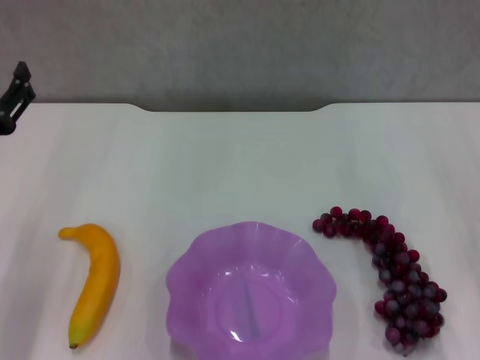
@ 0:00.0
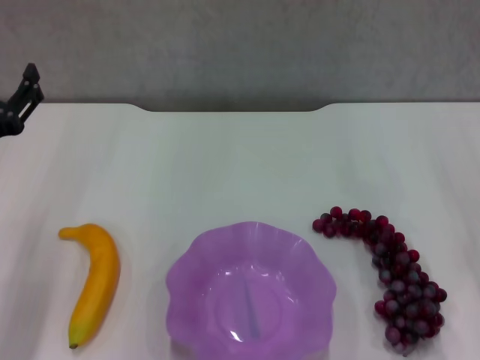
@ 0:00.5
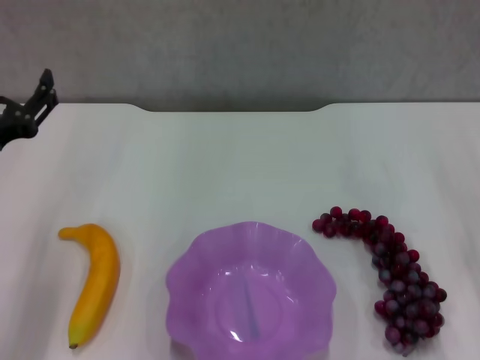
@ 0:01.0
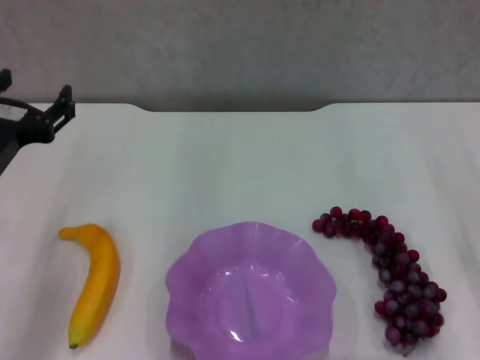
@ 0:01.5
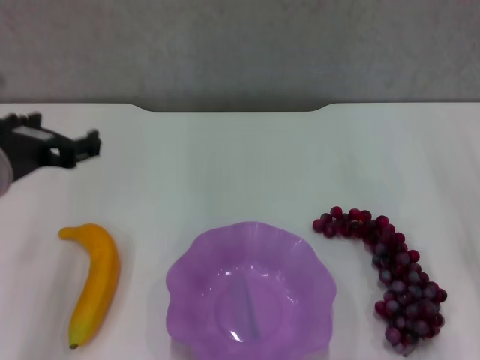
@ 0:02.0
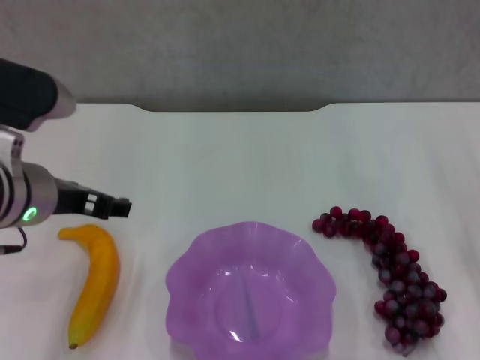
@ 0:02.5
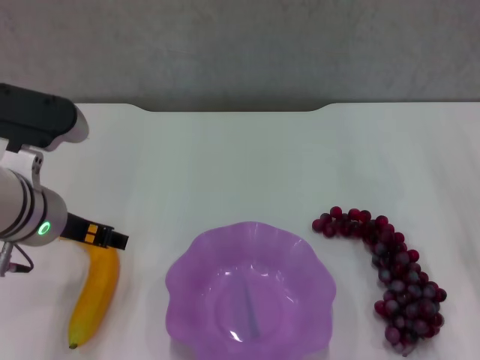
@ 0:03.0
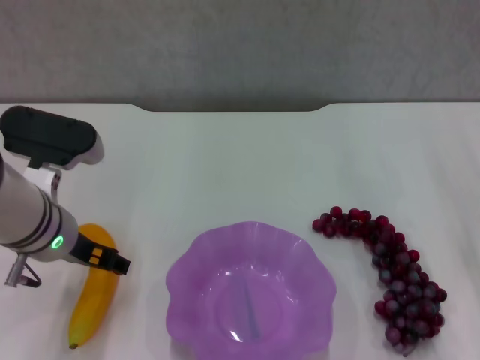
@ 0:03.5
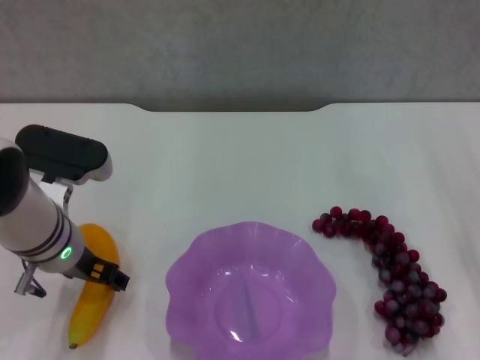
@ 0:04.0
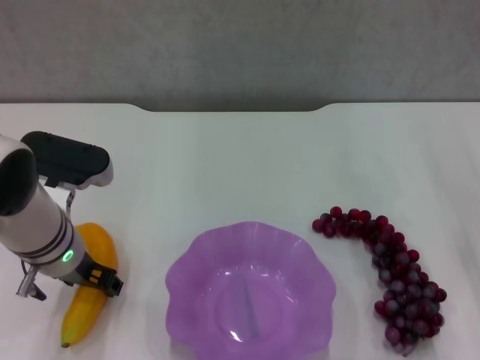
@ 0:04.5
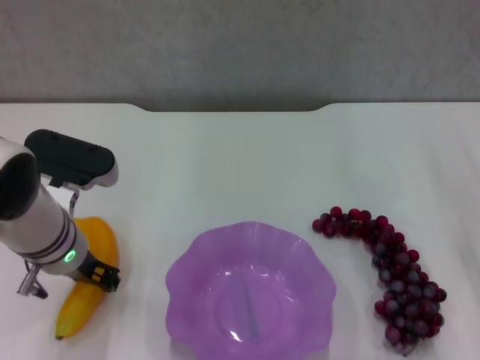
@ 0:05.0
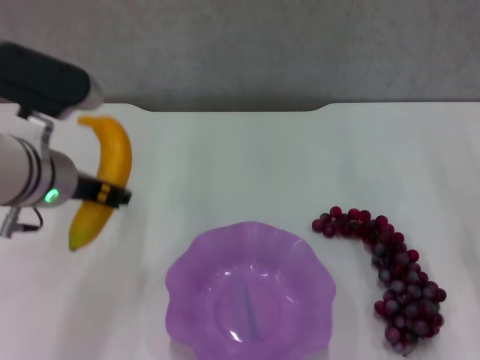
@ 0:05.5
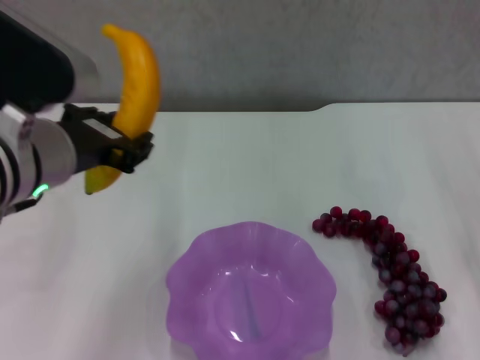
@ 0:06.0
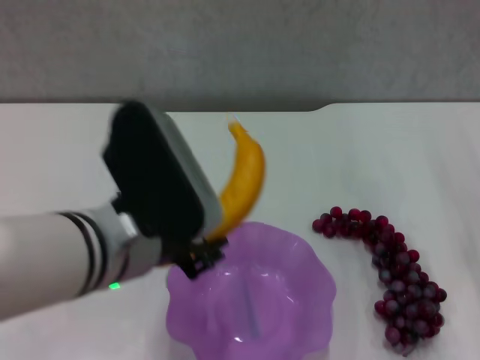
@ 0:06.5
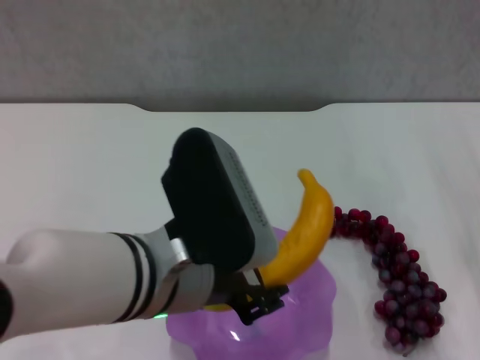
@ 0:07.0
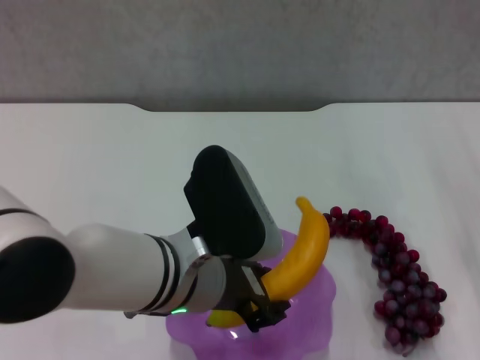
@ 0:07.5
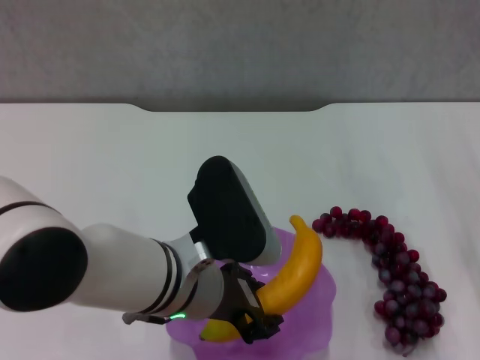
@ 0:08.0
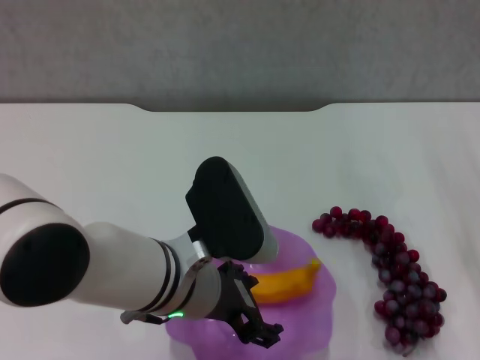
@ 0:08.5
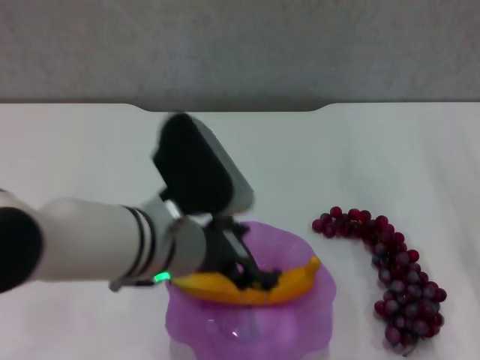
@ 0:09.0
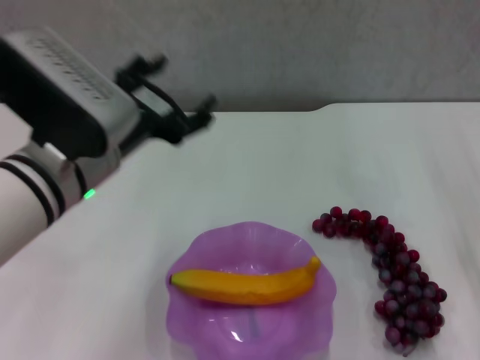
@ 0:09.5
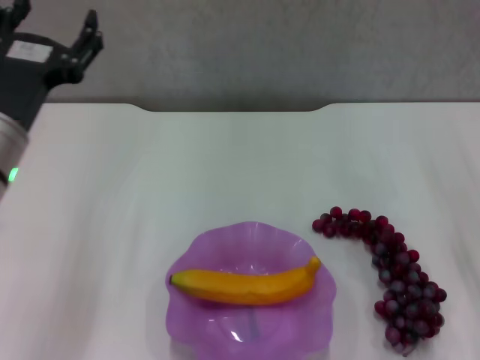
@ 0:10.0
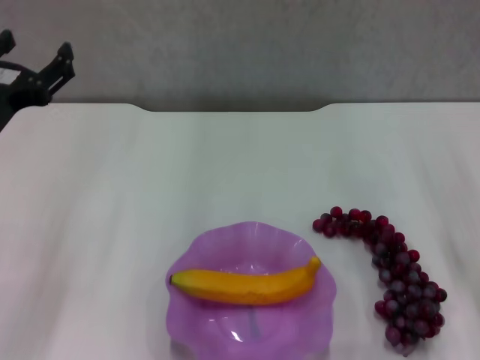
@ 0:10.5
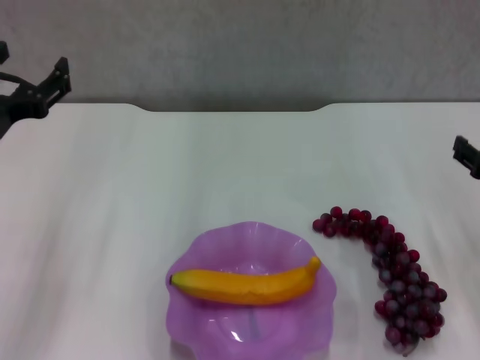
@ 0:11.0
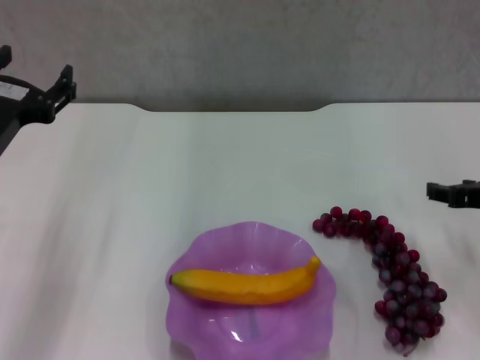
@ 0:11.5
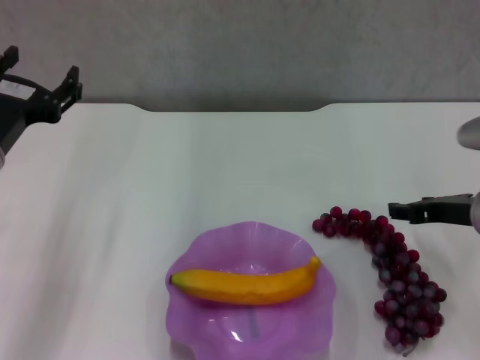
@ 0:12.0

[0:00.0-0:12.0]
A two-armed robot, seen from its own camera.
Step, 0:00.0 to 0:04.5: Grasp the banana with left gripper.
Step, 0:05.0 to 0:08.5: Place the banana in the purple plate with left gripper.
0:00.0 to 0:02.0: The left gripper travels upward and to the right by roughly 10 cm.
0:02.0 to 0:04.0: The left gripper moves downward, some 10 cm.
0:04.0 to 0:06.0: The left gripper heads upward, covering approximately 10 cm, and closes up.
0:06.0 to 0:08.0: The left gripper shifts approximately 15 cm to the right and downward.
0:08.0 to 0:10.0: The left gripper moves to the left, about 15 cm, and opens its fingers.
0:10.0 to 0:12.0: The right gripper heads forward, covering roughly 10 cm.

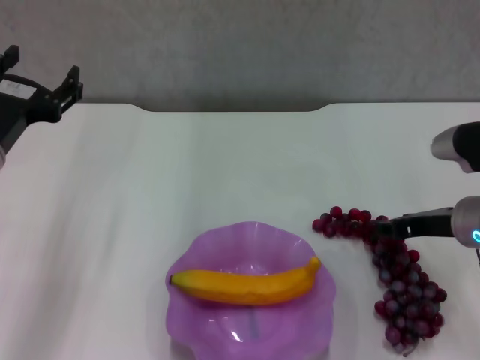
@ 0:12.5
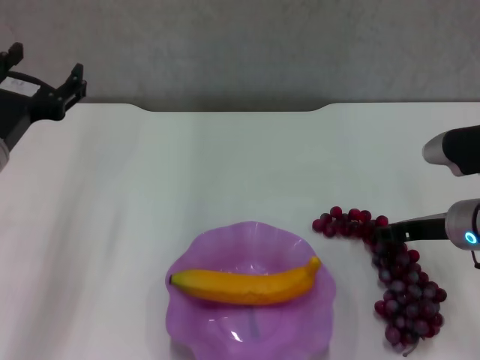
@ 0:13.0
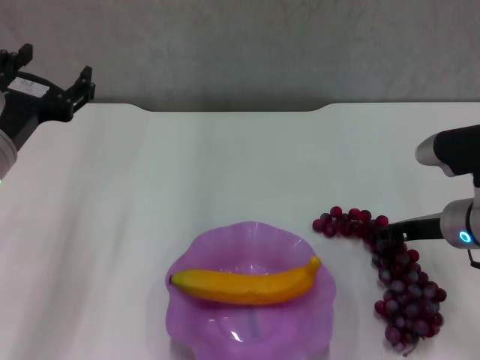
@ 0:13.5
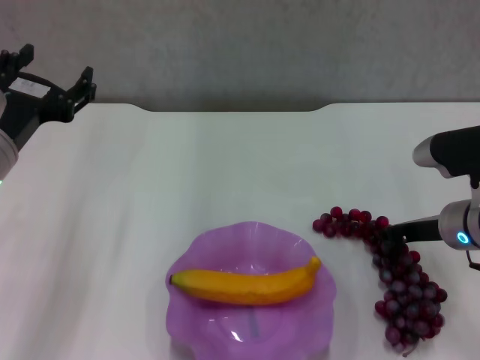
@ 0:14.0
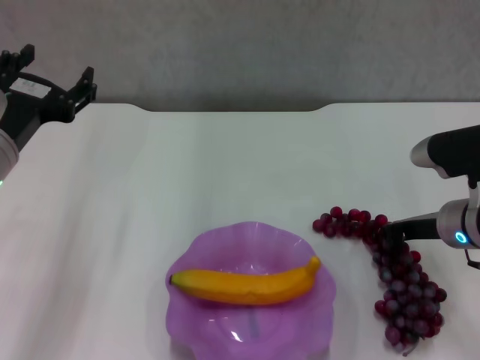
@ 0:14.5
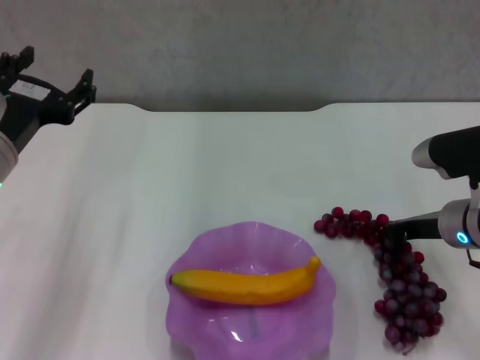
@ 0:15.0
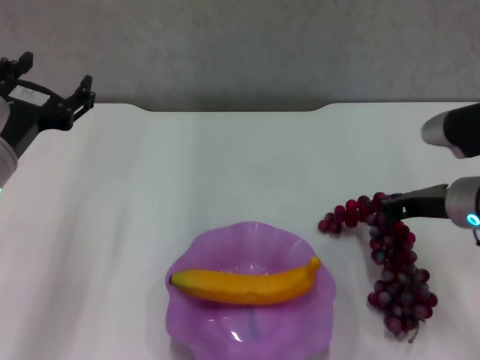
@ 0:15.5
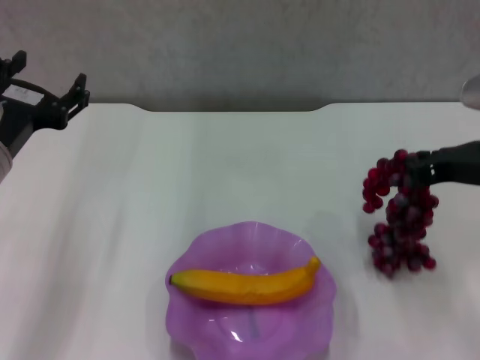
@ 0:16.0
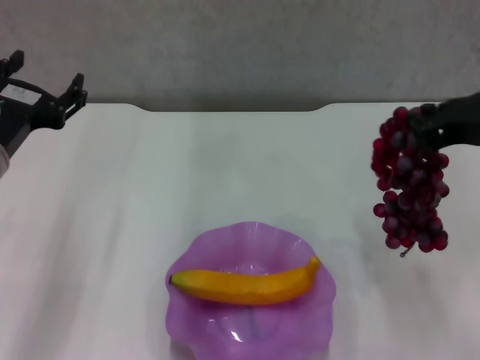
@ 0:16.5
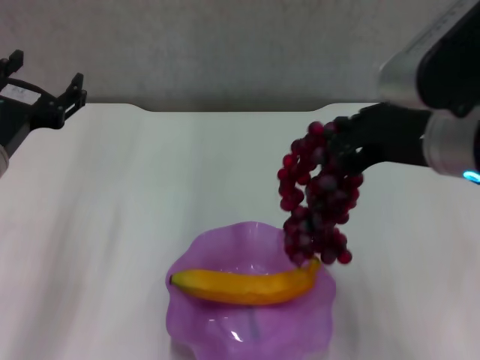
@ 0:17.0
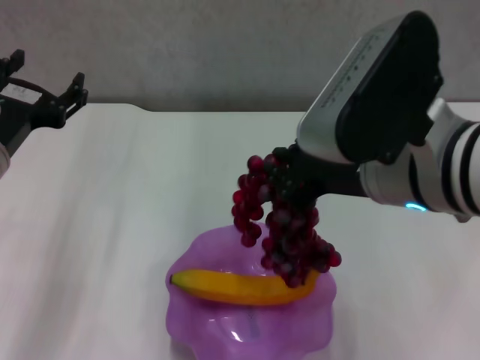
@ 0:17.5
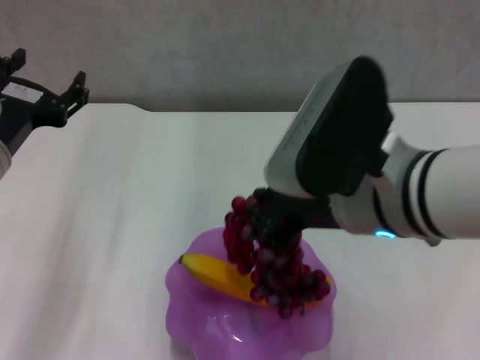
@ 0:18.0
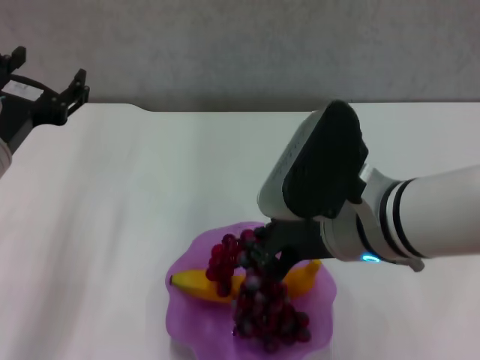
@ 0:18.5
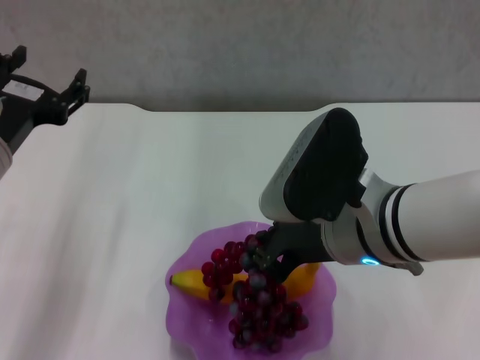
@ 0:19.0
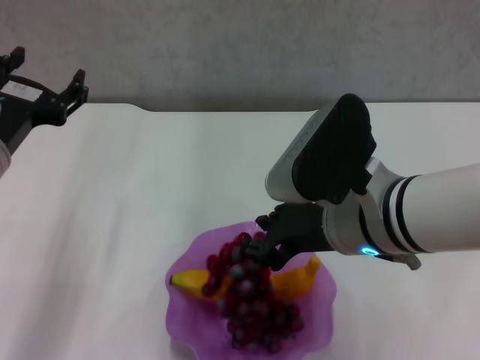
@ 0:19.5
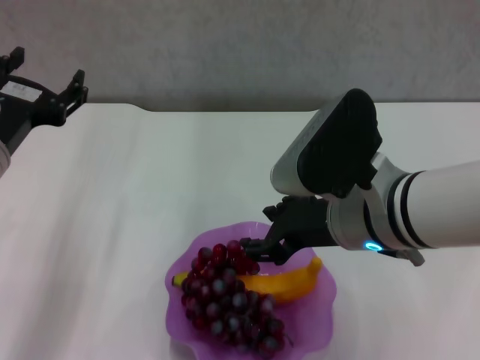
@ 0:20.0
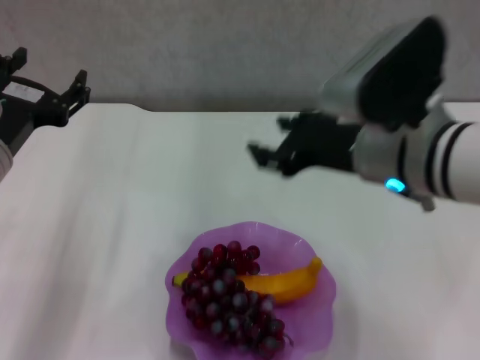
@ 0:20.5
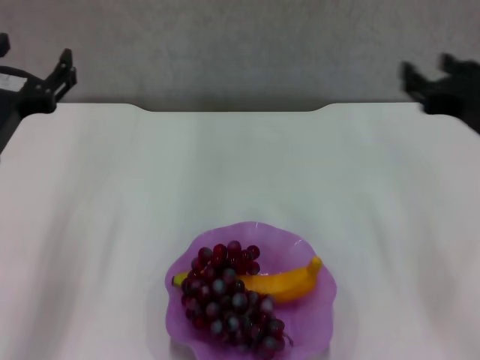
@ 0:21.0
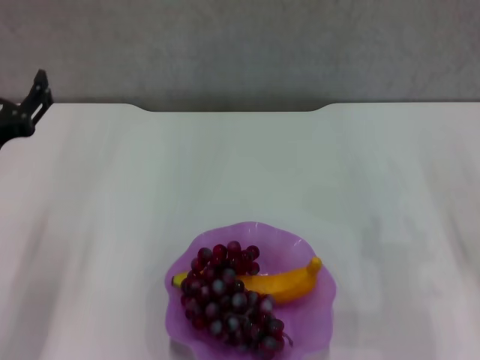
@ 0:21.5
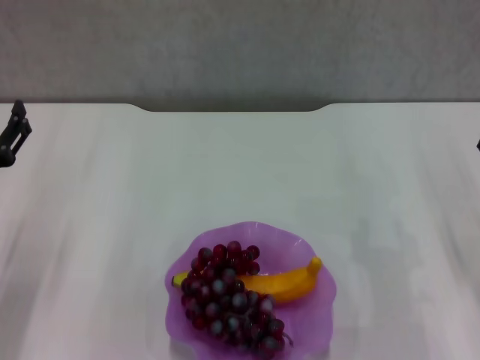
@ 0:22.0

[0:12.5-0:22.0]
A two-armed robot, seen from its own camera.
Step, 0:12.5 to 0:15.0: Grasp the grape with right gripper.
Step, 0:15.5 to 0:20.0: Place the grape in the purple plate with right gripper.
0:12.5 to 0:14.5: The right gripper closes up.
0:14.5 to 0:16.5: The right gripper heads upward, covering some 15 cm.
0:16.5 to 0:18.0: The right gripper shifts approximately 10 cm to the left.
0:18.0 to 0:20.0: The right gripper opens up.
0:20.0 to 0:22.0: The right gripper travels to the right and downward by some 20 cm; the left gripper heads downward, covering about 10 cm.

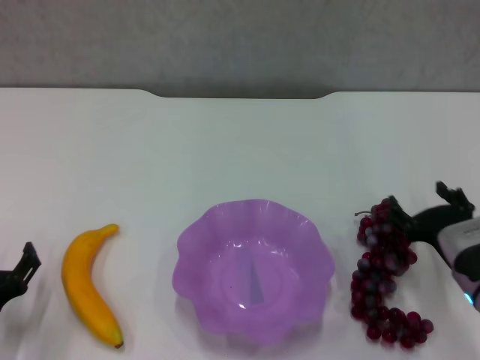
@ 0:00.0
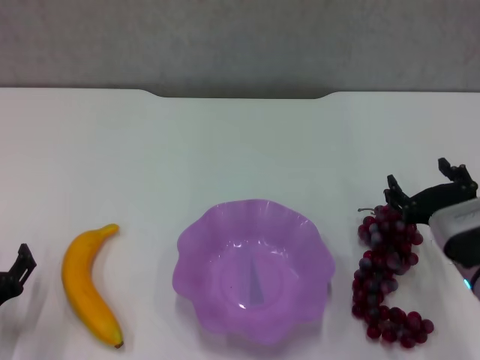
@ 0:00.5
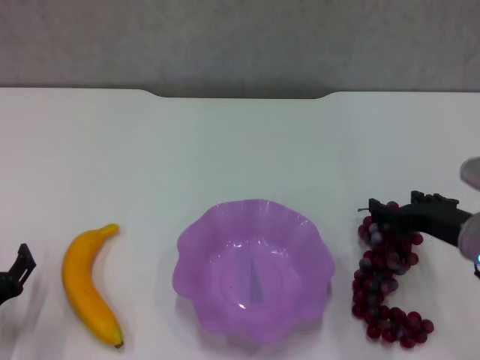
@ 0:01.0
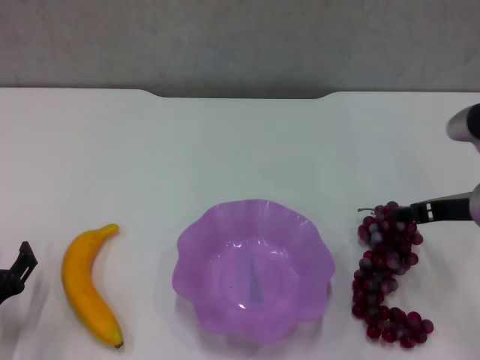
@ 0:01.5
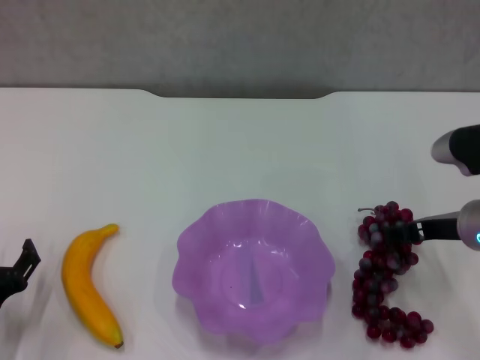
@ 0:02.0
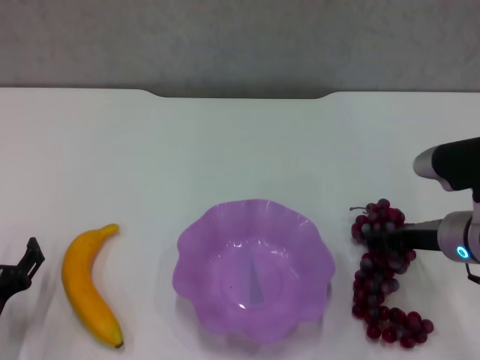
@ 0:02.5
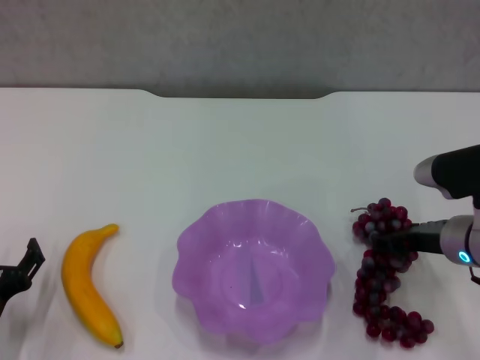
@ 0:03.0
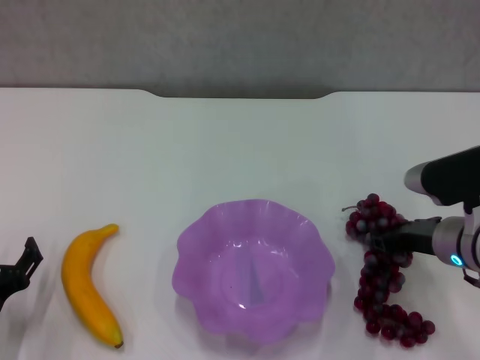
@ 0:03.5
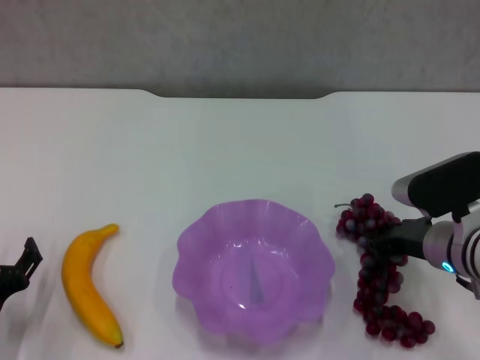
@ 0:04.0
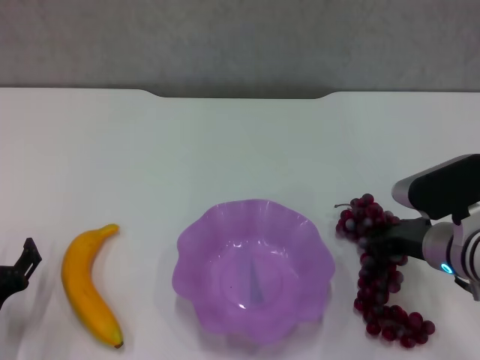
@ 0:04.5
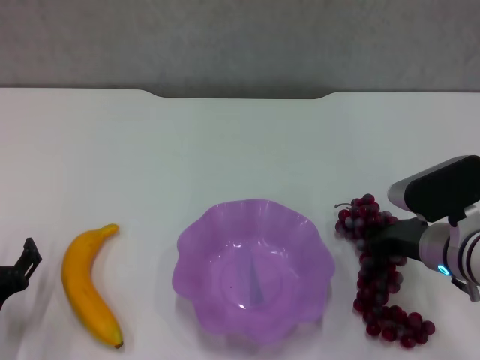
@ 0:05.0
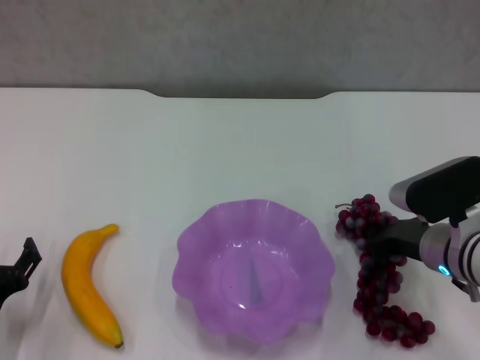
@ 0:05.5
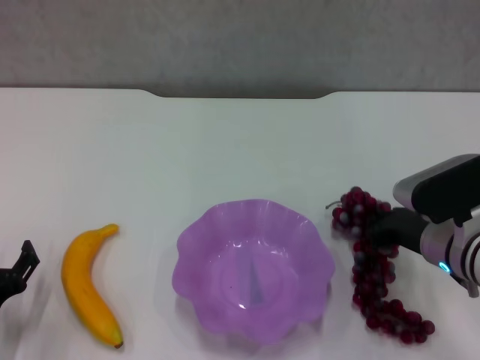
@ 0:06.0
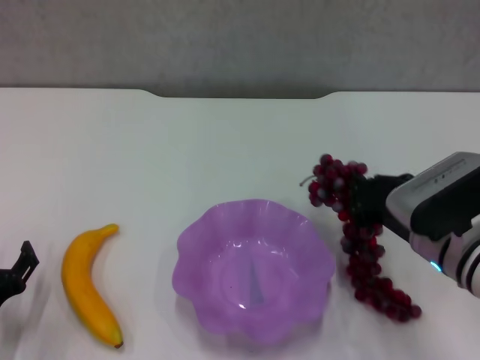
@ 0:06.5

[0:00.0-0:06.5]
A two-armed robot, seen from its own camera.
Step, 0:00.0 to 0:03.5: Grasp the grape with right gripper.
0:00.0 to 0:02.0: The right gripper is displaced upward and forward by some 10 cm.
0:02.0 to 0:04.5: The right gripper ends up some 5 cm from where it was, and closes up.
